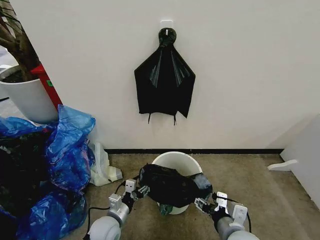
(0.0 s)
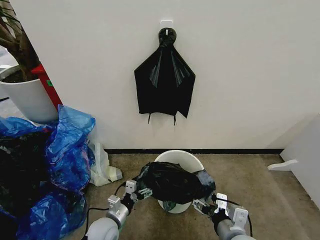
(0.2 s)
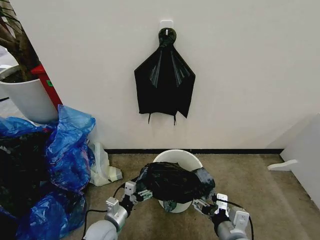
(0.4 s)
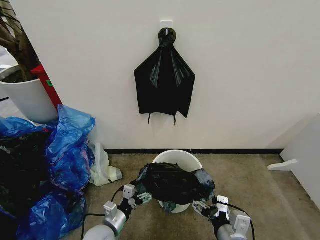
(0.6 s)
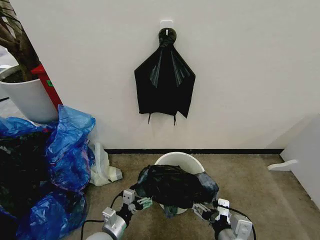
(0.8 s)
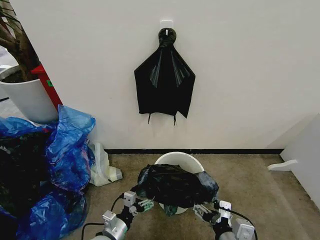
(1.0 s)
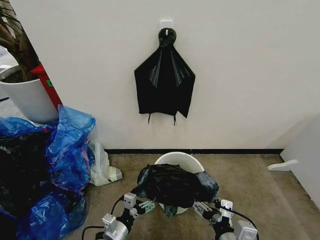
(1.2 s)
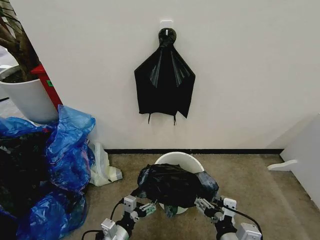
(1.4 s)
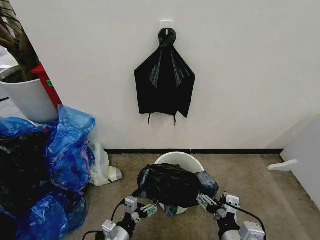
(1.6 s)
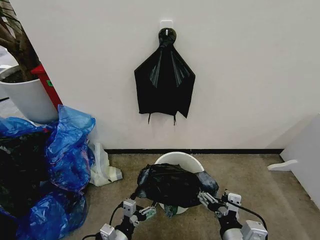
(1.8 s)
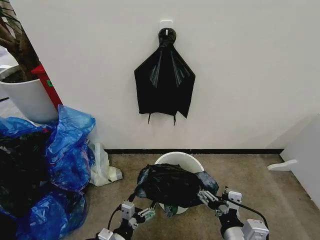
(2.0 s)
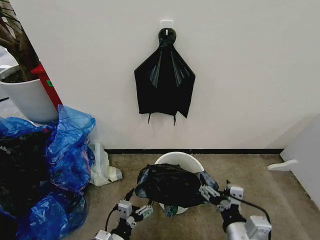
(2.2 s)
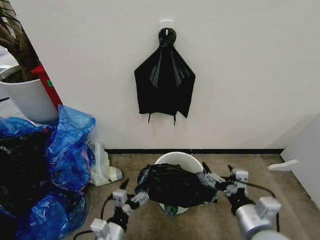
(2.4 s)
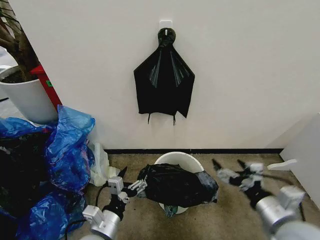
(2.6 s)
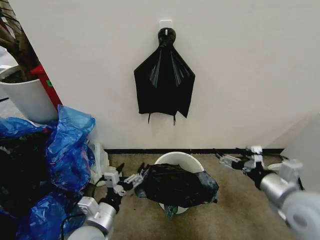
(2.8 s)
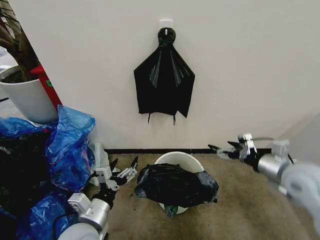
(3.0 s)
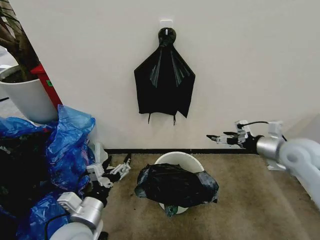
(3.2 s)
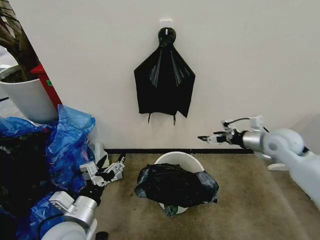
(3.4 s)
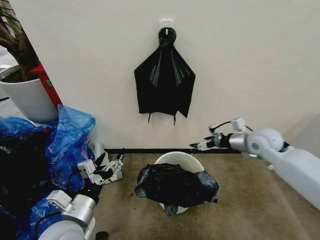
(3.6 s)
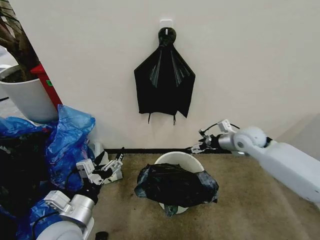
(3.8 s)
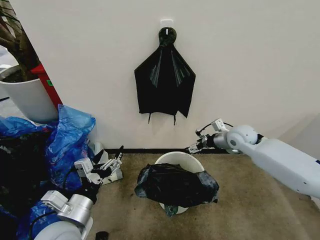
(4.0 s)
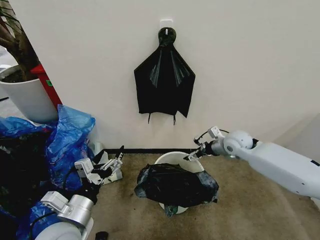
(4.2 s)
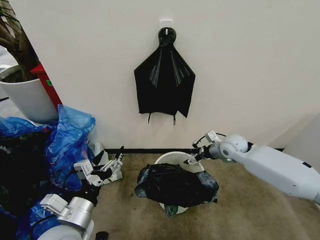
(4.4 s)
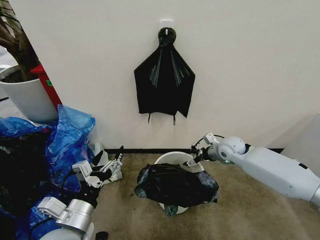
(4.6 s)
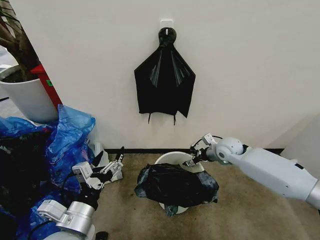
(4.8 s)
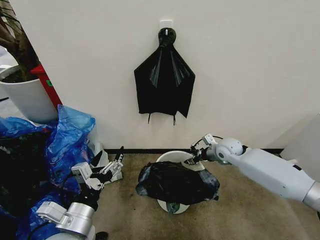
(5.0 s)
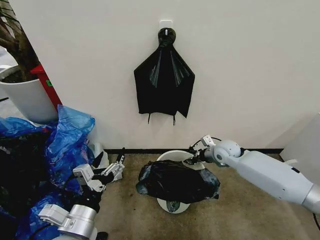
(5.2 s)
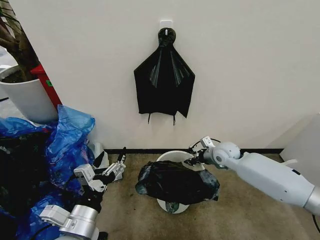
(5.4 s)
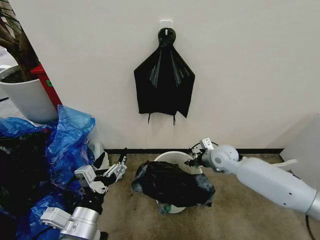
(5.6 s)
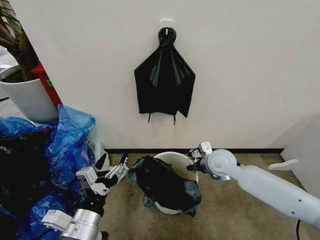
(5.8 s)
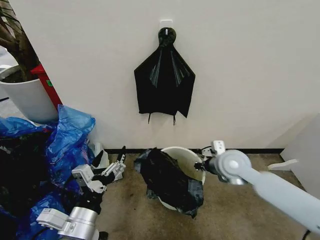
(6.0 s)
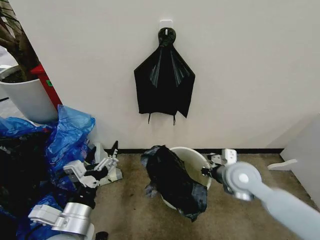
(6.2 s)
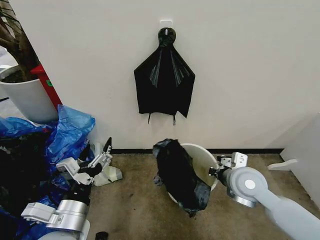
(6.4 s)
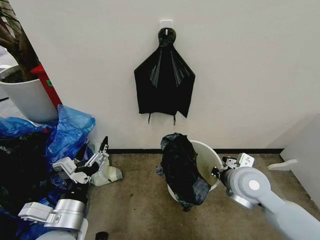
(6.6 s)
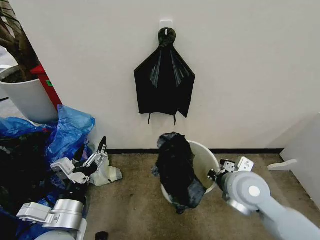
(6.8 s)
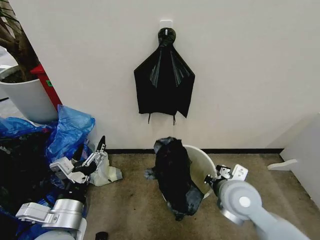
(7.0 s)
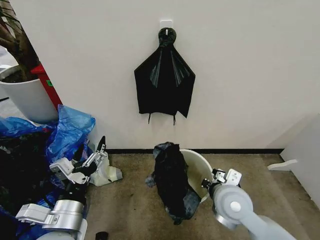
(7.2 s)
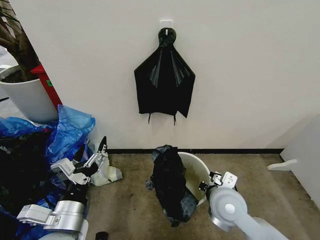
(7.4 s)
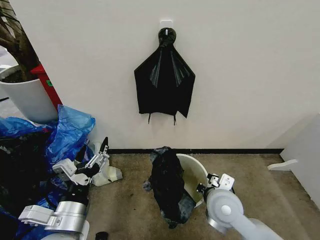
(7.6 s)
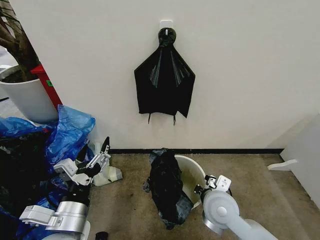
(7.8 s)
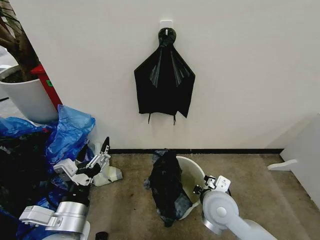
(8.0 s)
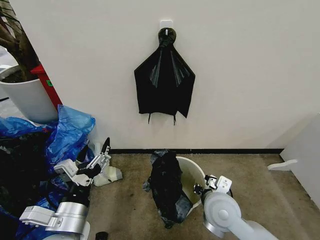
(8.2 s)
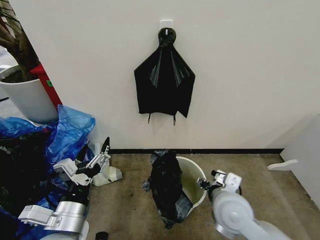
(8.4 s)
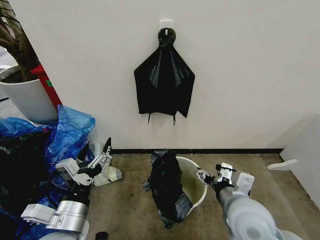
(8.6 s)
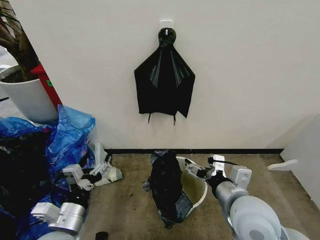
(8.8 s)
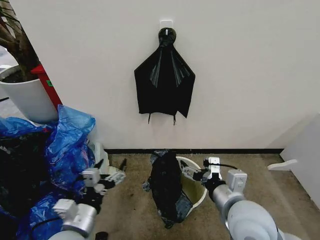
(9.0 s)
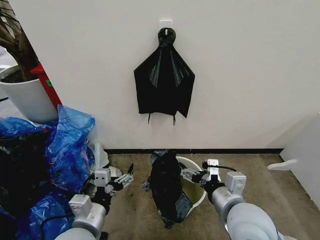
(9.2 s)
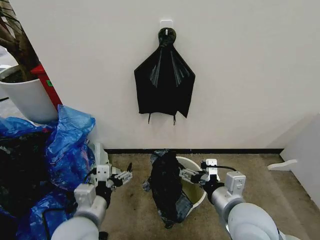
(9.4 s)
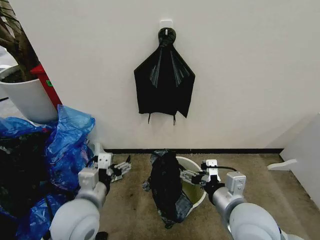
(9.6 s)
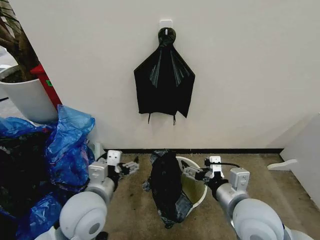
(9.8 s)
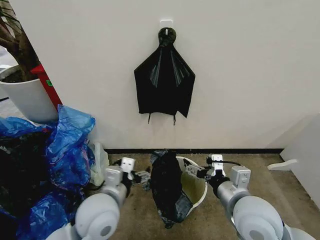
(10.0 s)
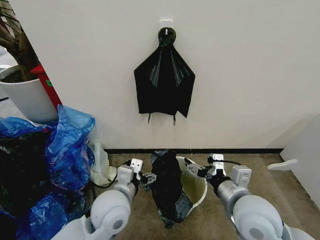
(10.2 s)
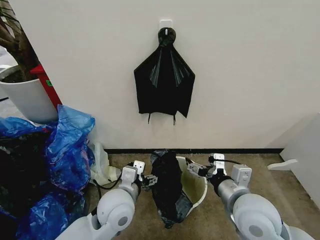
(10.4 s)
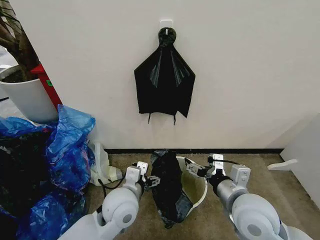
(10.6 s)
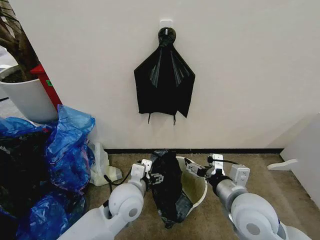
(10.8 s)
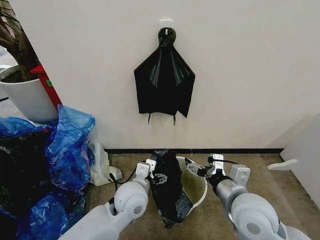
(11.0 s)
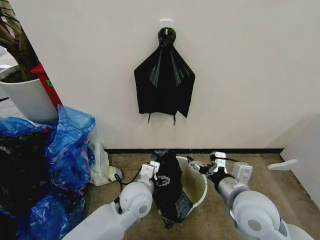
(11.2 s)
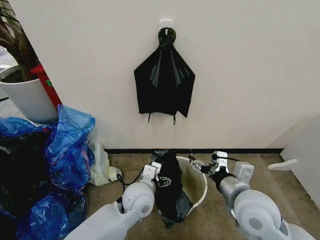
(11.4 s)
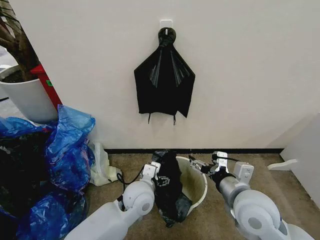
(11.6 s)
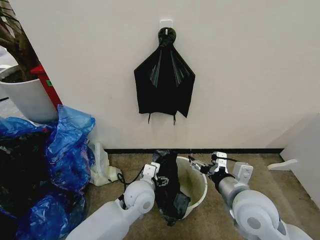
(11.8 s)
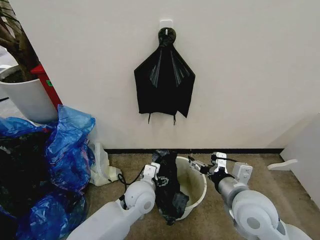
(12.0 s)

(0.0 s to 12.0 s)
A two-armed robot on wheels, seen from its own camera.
Task of the whole recording: Place the garbage bag over the trash bin.
0.0 s - 1.6 s: The grippers both shift backward by roughly 5 cm.
1.6 s - 3.0 s: The left gripper travels upward by about 15 cm; the right gripper shifts roughly 30 cm forward, to the right and upward.
3.0 s - 4.4 s: The right gripper is displaced forward, downward and to the left by approximately 20 cm.
4.4 s - 6.0 s: The right gripper is displaced backward and to the left by approximately 10 cm, and closes its fingers.
6.0 s - 7.6 s: The right gripper travels backward and to the left by roughly 15 cm.
7.6 s - 9.0 s: The right gripper shifts approximately 10 cm upward and backward, and opens its fingers. The left gripper shifts by approximately 5 cm.
9.0 s - 10.4 s: The left gripper shifts about 15 cm to the right and forward.
10.4 s - 12.0 s: The left gripper goes some 10 cm downward, forward and to the right.

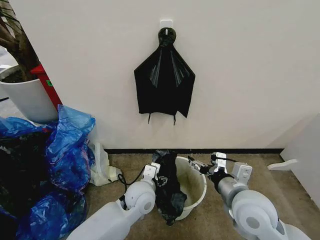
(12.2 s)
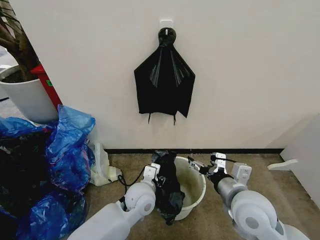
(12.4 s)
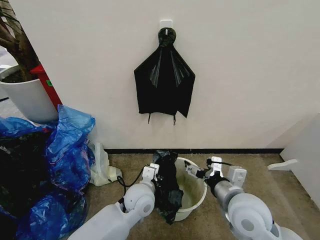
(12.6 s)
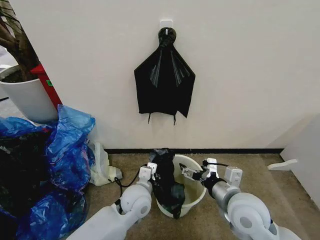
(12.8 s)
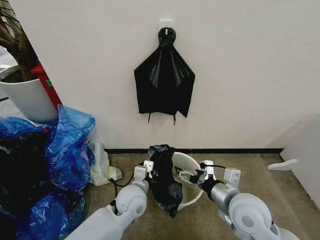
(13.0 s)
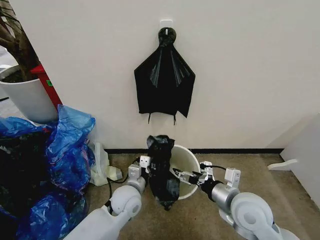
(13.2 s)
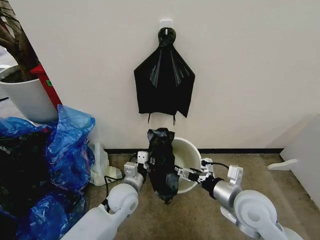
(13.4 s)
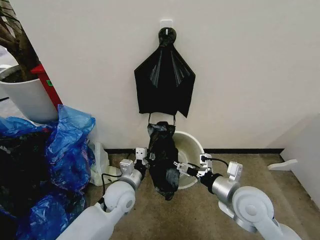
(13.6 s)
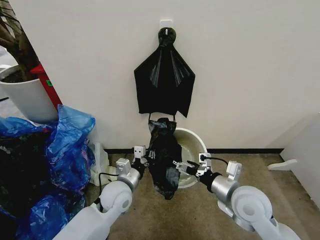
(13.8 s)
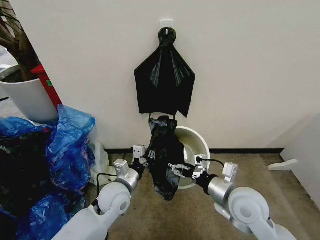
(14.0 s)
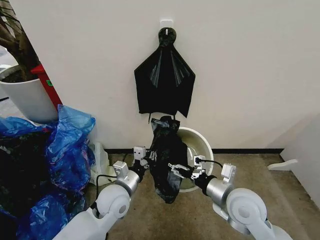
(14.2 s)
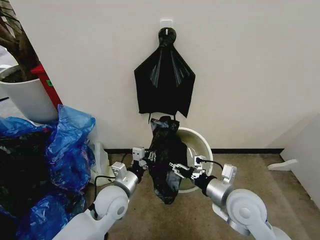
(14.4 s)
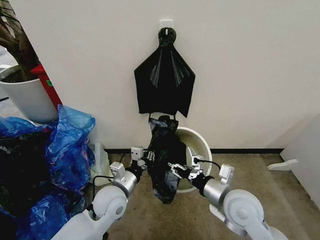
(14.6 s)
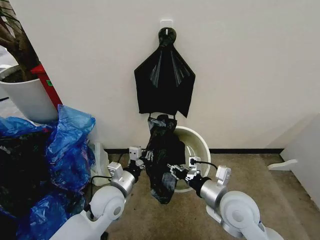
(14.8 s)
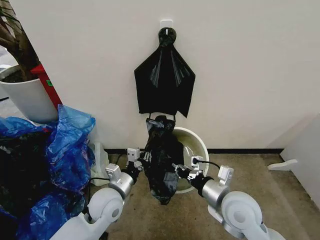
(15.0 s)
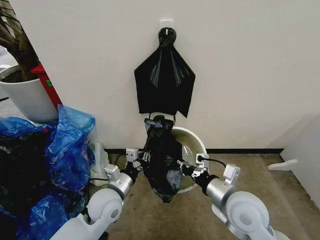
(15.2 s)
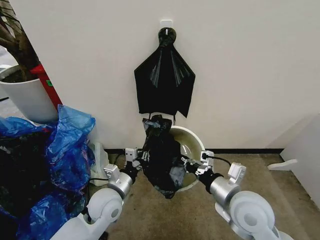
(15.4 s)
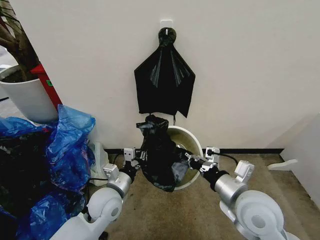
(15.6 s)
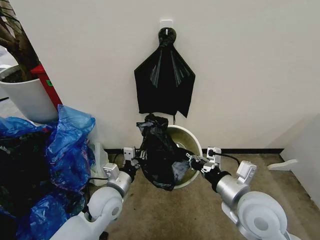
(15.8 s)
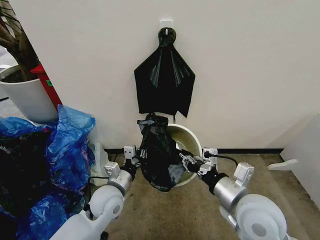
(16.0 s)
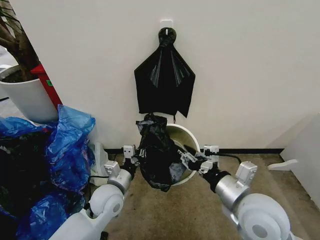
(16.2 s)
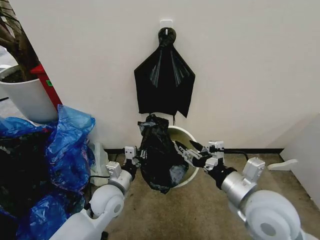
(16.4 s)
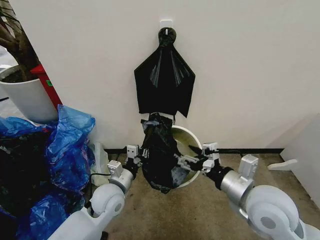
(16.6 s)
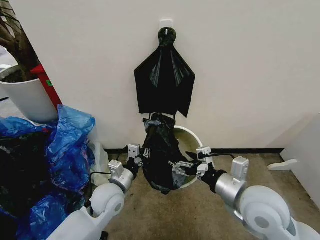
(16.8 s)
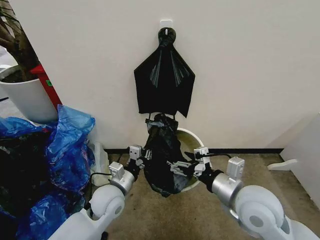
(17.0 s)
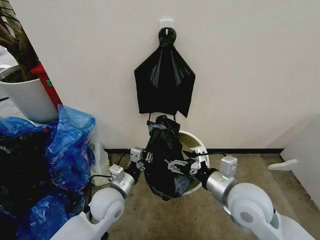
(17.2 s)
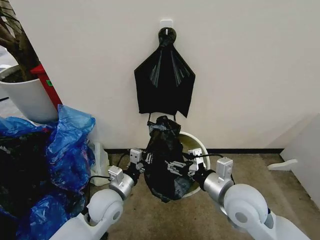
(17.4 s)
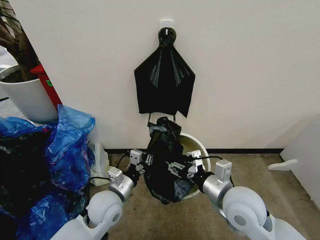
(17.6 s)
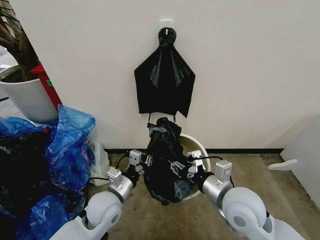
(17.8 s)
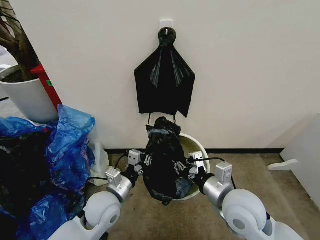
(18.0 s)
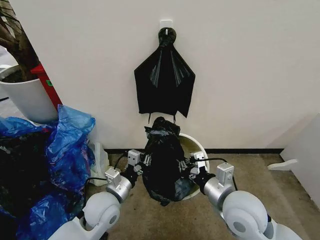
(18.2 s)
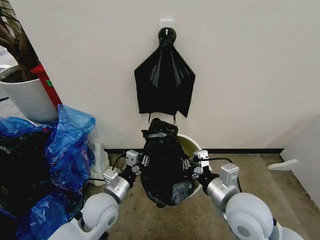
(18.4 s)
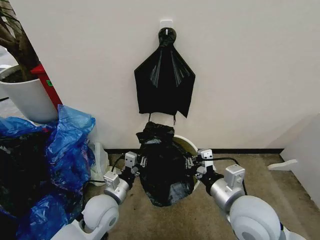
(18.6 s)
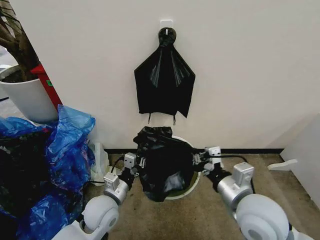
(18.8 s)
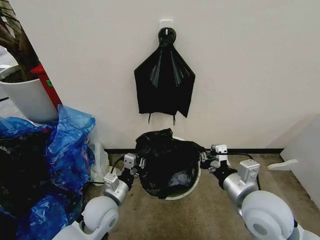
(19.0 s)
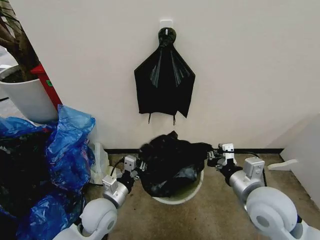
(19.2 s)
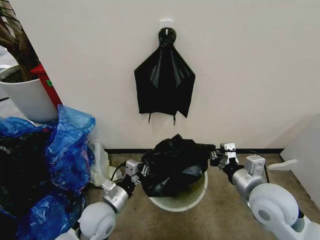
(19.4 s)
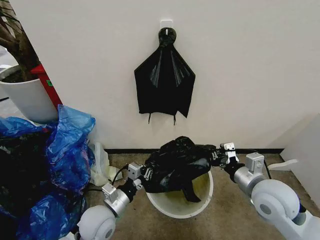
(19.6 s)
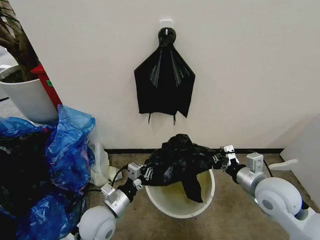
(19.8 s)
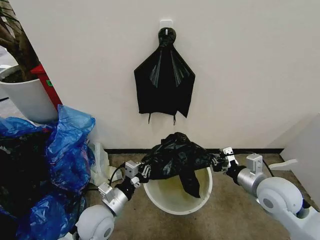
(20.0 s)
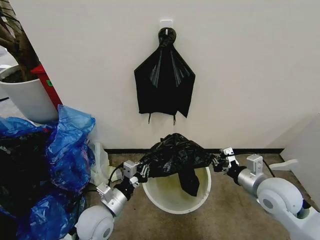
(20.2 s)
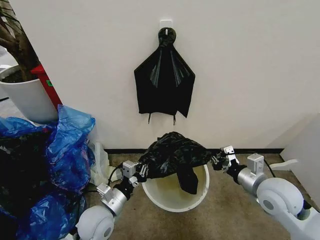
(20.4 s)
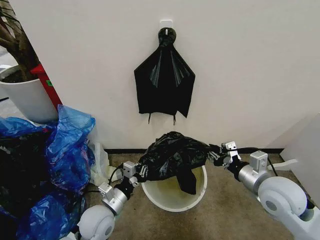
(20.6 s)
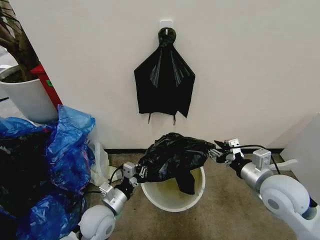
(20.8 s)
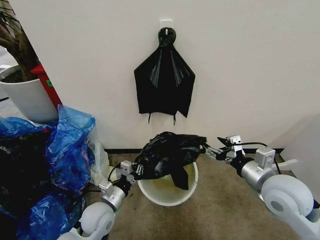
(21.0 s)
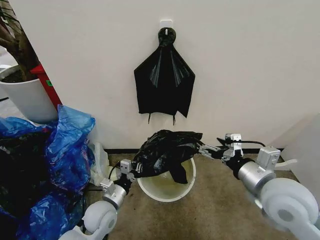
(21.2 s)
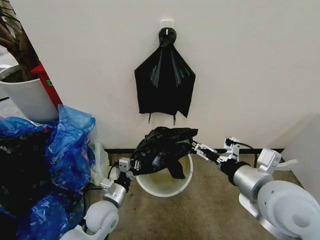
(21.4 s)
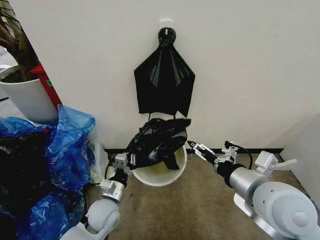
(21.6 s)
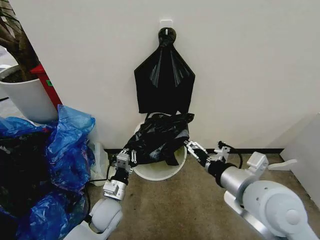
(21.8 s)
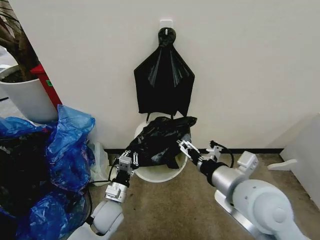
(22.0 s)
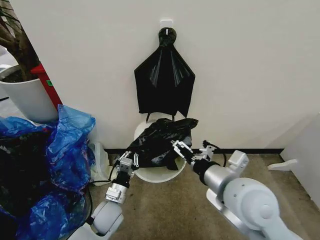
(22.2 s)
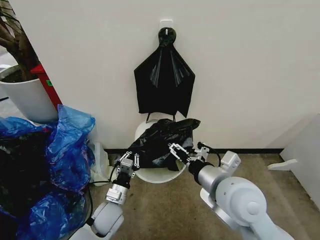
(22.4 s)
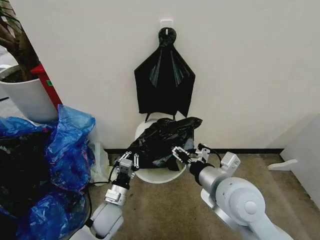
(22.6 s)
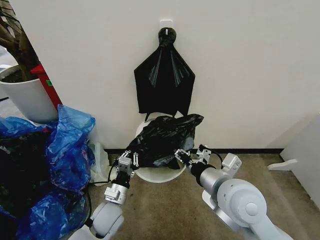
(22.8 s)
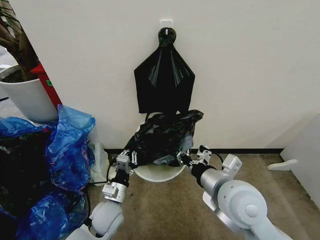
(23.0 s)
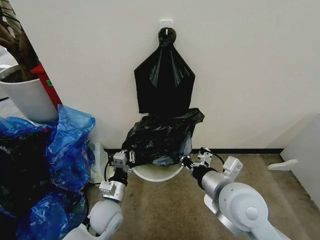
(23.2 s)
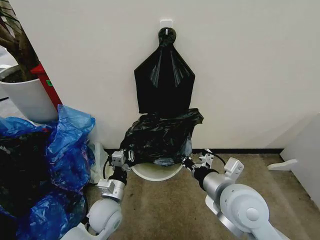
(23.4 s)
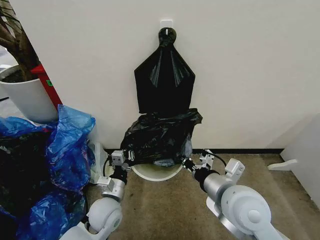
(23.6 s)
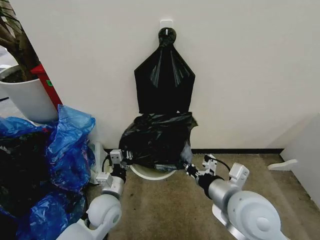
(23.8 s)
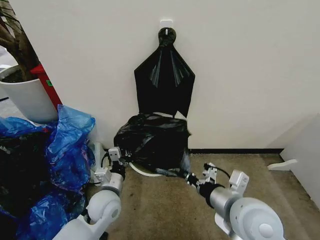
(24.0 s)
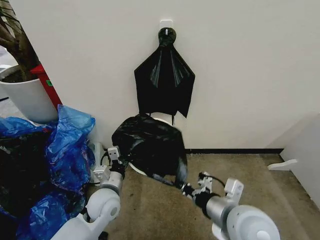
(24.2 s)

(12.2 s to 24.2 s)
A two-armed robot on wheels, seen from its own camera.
Task of the whole recording: Place the garbage bag over the trash bin.
12.2 s - 13.8 s: The left gripper is displaced to the left by some 10 cm, and closes.
13.8 s - 15.2 s: The right gripper closes.
15.2 s - 16.6 s: The right gripper moves upward, about 5 cm, and opens its fingers.
16.6 s - 18.2 s: The right gripper shifts by approximately 5 cm, and closes up.
18.2 s - 19.8 s: The right gripper heads to the right, covering approximately 10 cm.
19.8 s - 21.2 s: The right gripper heads upward, covering some 5 cm, and opens its fingers.
21.2 s - 22.6 s: The right gripper moves to the left, some 10 cm.
22.6 s - 24.2 s: The right gripper travels backward by roughly 5 cm, and closes its fingers, while the left gripper is displaced upward by roughly 5 cm.
